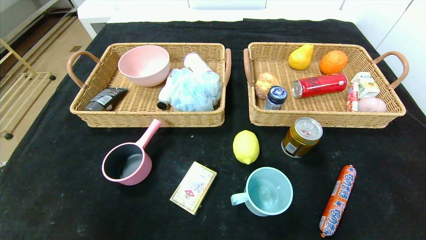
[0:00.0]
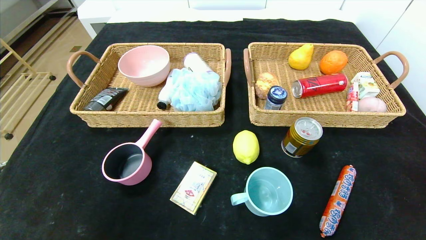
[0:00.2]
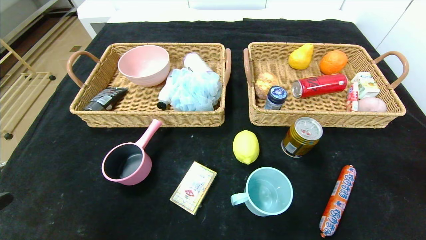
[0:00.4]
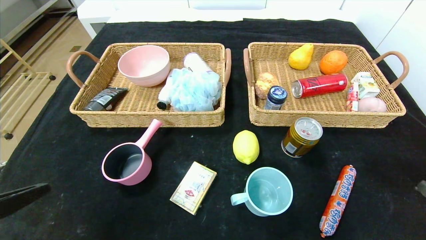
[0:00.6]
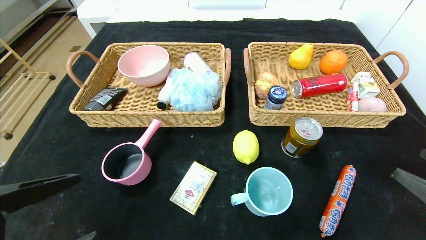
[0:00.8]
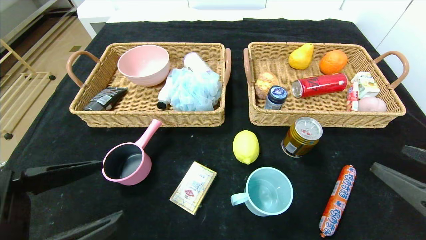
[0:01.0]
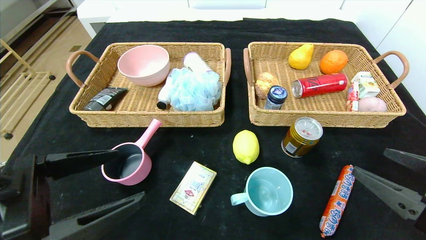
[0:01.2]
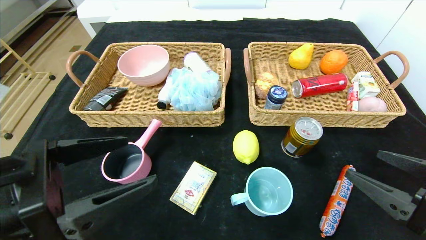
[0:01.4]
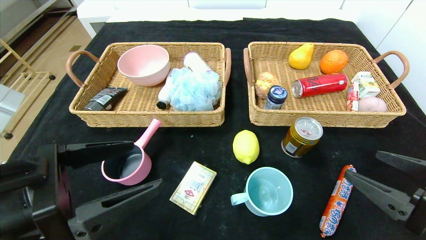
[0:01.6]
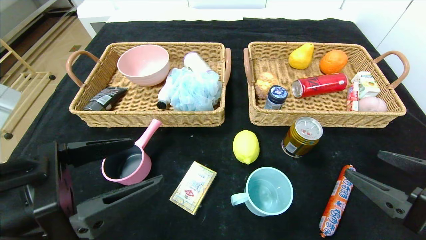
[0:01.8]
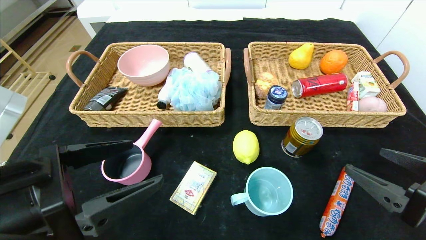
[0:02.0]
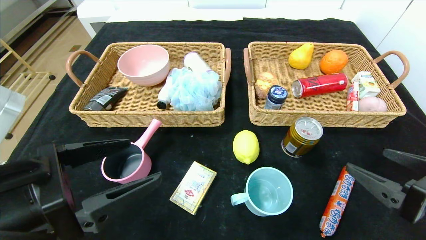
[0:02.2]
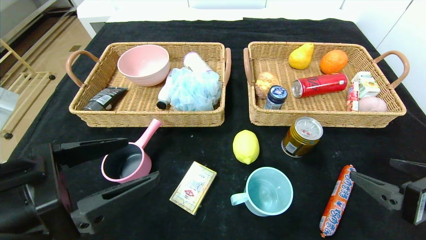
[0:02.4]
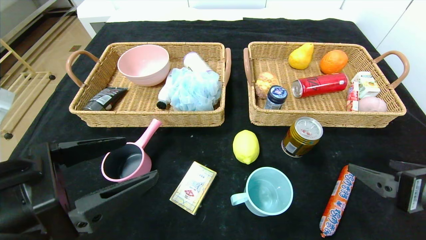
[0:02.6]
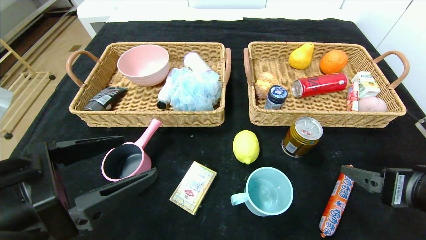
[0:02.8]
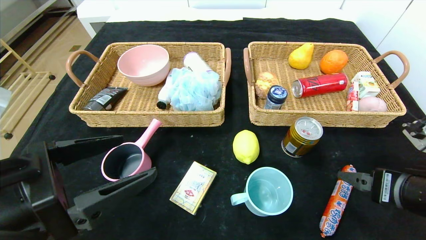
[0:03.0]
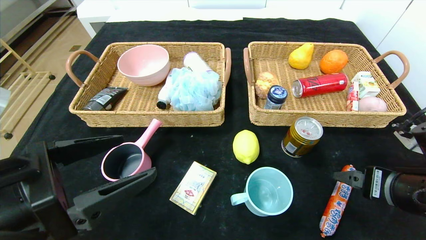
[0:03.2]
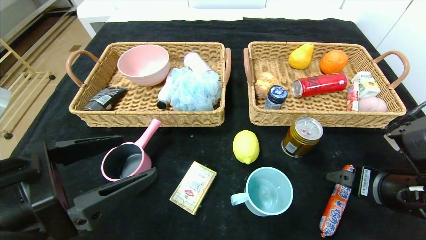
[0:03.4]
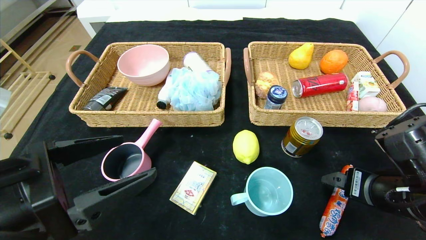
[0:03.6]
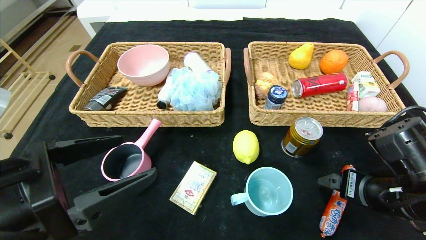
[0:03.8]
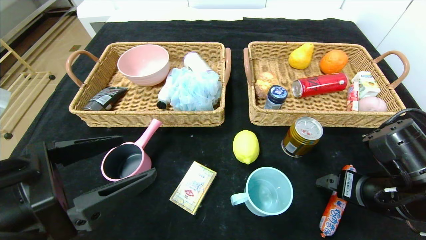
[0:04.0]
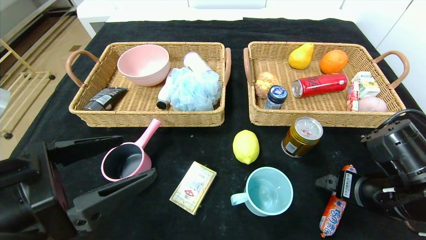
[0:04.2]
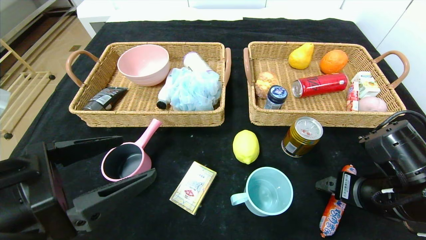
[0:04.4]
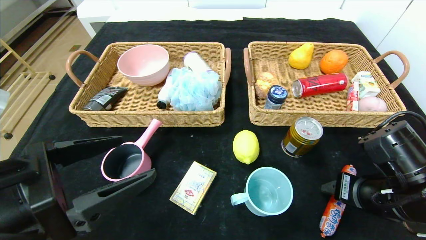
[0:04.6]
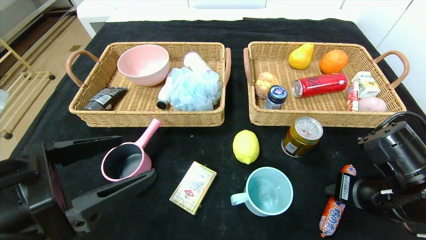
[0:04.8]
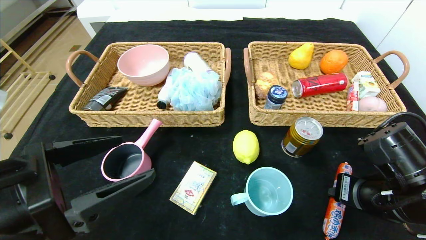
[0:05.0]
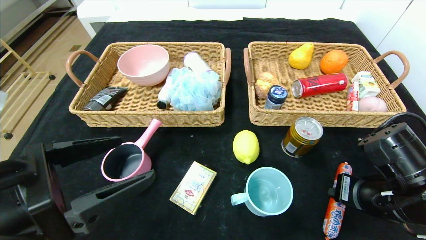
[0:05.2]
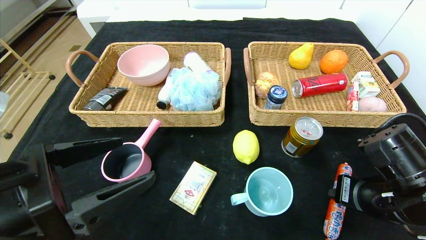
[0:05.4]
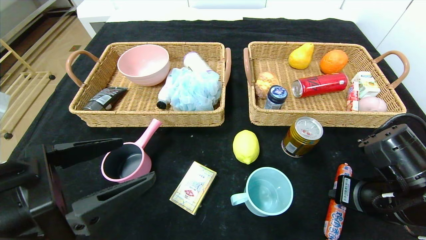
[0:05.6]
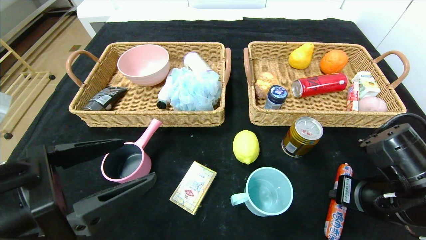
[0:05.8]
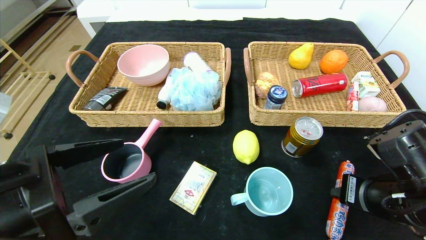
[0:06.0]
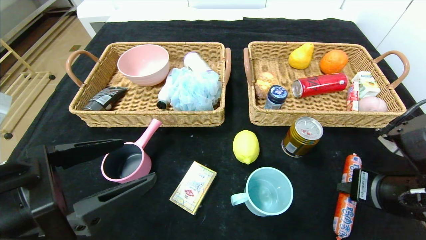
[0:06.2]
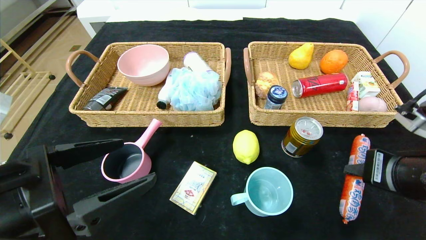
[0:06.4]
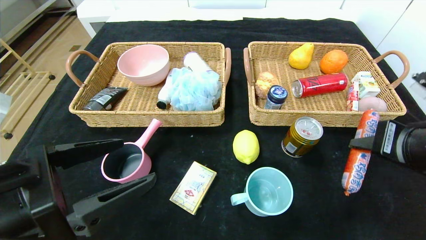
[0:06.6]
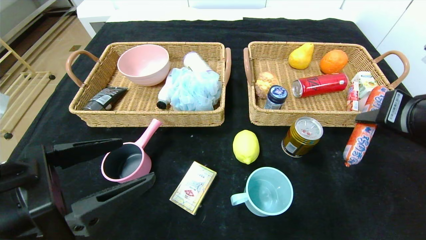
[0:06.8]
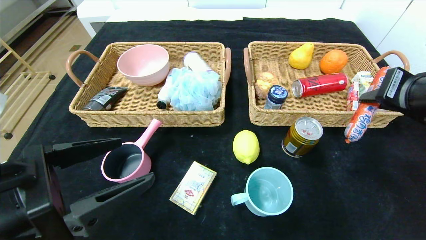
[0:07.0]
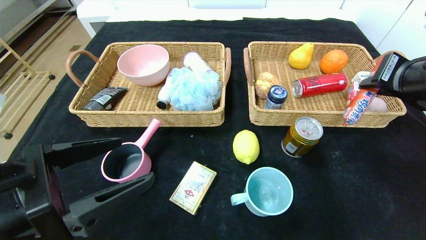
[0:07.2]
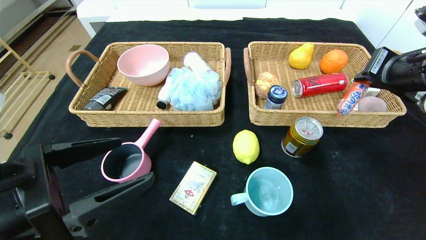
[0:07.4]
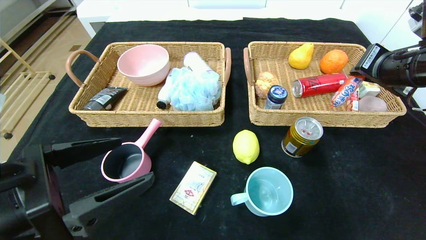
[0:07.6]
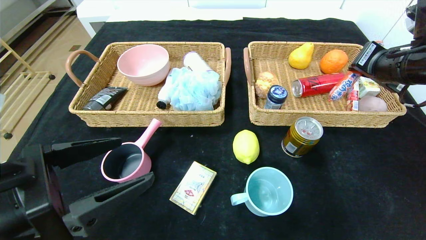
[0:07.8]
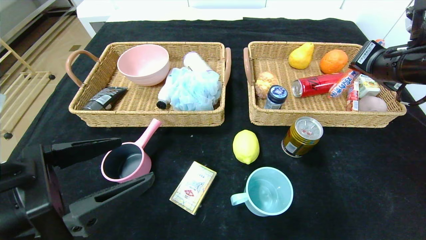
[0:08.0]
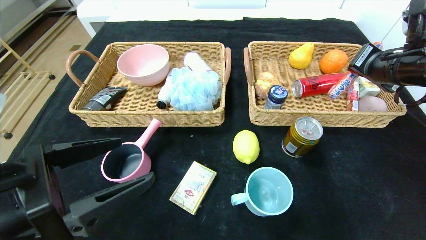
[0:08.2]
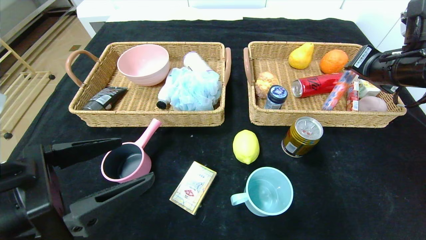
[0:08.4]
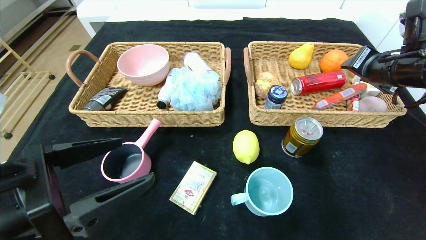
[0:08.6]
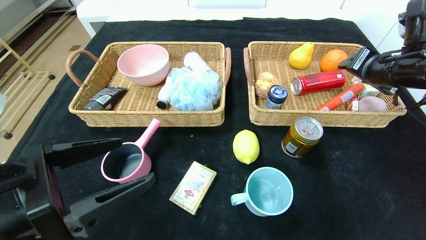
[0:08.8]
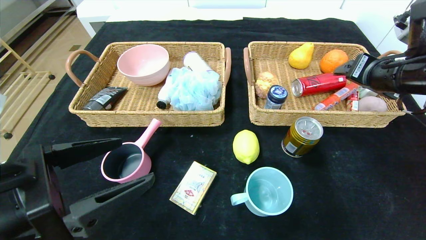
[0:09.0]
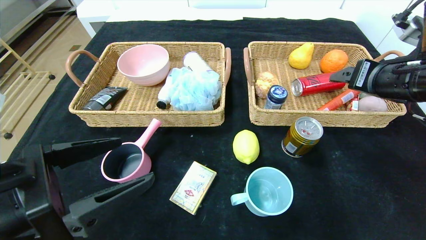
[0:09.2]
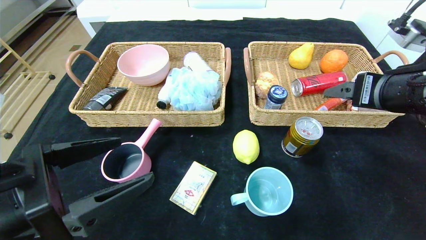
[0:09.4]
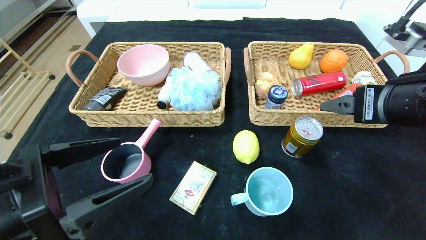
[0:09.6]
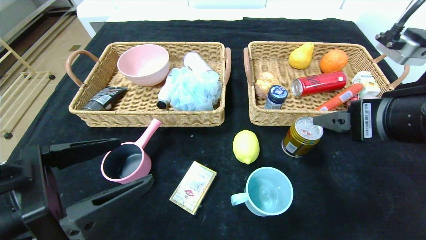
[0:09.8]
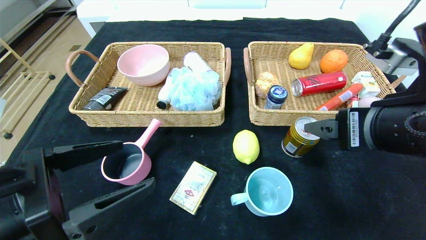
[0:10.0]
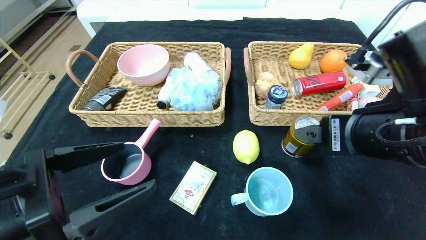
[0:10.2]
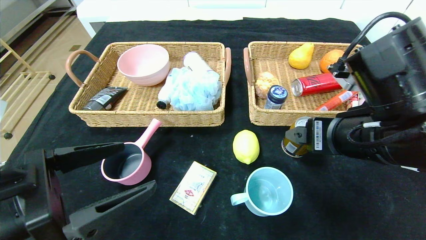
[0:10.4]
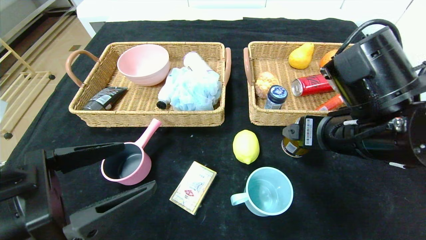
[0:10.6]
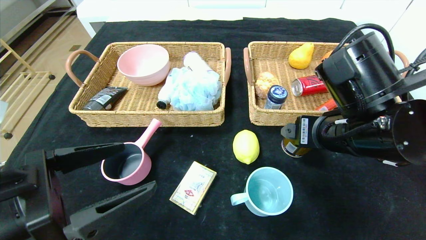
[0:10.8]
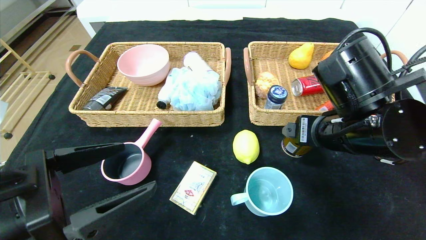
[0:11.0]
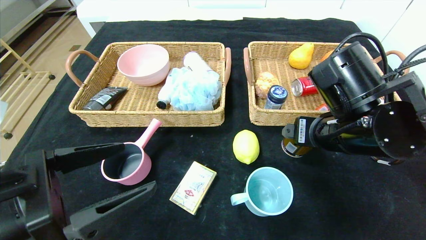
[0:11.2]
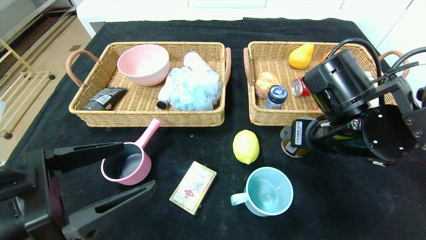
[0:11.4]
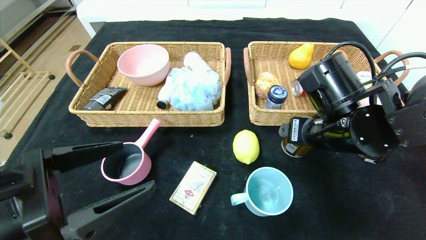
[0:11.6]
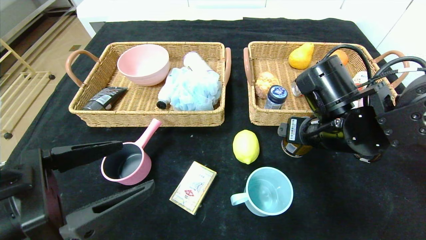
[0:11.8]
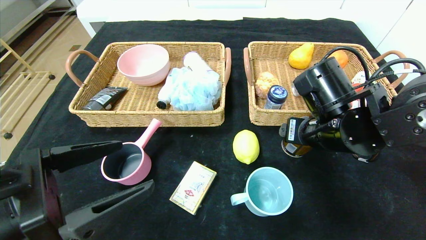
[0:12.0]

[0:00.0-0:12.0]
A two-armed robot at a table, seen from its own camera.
Step, 0:00.0 to 0:09.8: Pick up the sausage and put it in the right basket.
0:00.0 to 0:01.6: The left gripper goes some 20 cm forward, upward and to the right, while the right gripper heads forward and to the left, covering some 15 cm.
0:03.0 to 0:04.4: The right gripper moves some 5 cm.
0:04.4 to 0:06.0: The right gripper closes its fingers.
0:06.0 to 0:07.6: The right gripper shifts approximately 20 cm upward and forward.
0:07.6 to 0:09.0: The right gripper opens.
0:09.0 to 0:10.4: The right gripper shifts about 15 cm to the left and backward.
0:10.4 to 0:12.0: The right gripper goes about 5 cm forward.

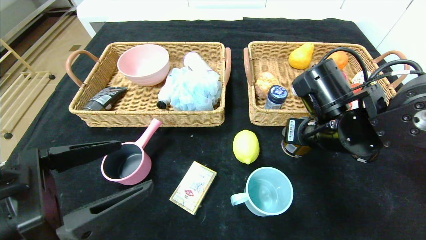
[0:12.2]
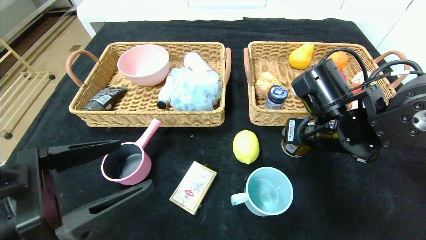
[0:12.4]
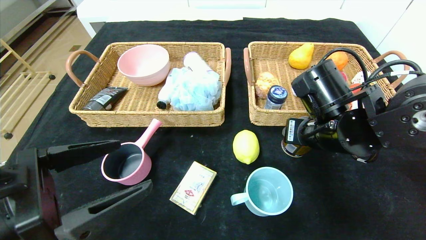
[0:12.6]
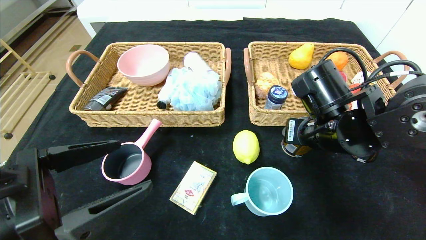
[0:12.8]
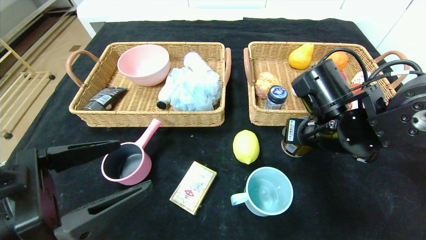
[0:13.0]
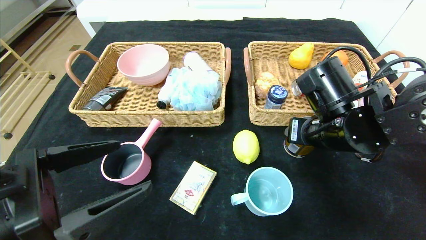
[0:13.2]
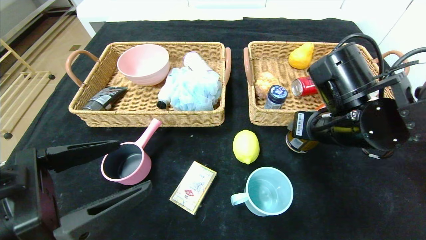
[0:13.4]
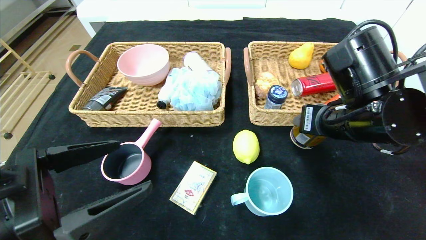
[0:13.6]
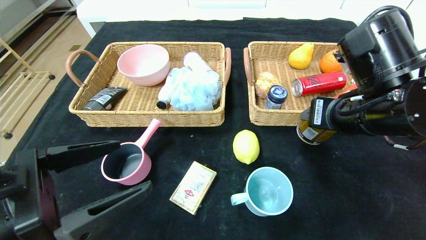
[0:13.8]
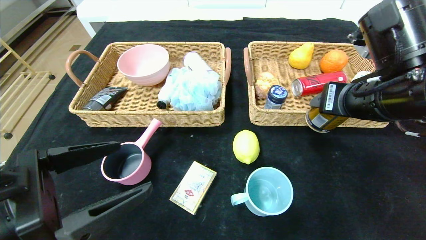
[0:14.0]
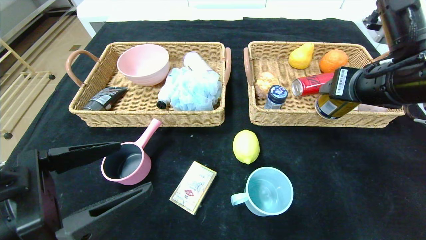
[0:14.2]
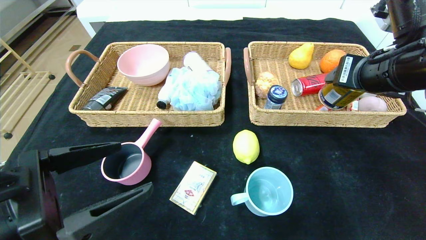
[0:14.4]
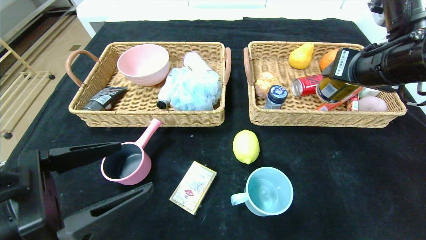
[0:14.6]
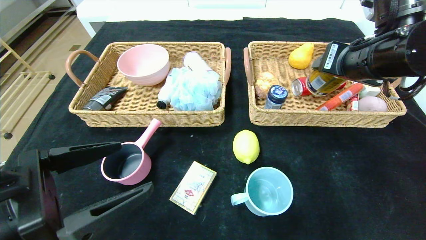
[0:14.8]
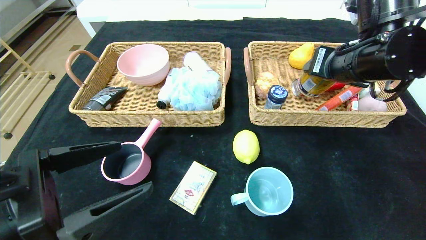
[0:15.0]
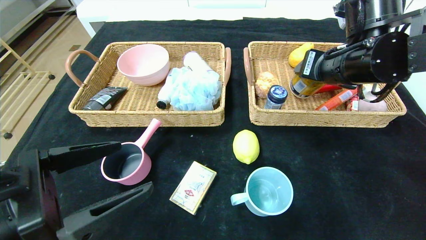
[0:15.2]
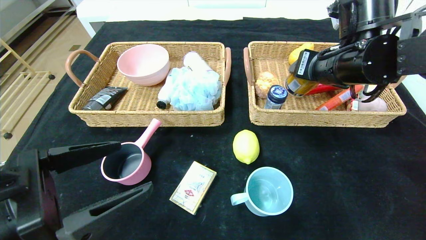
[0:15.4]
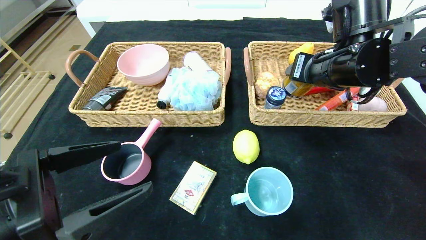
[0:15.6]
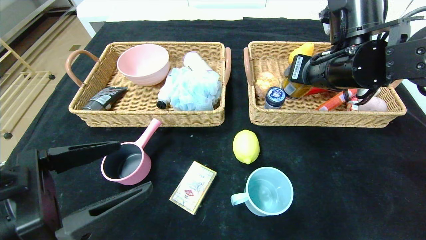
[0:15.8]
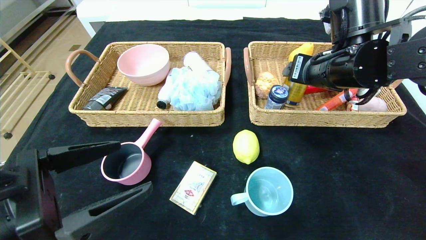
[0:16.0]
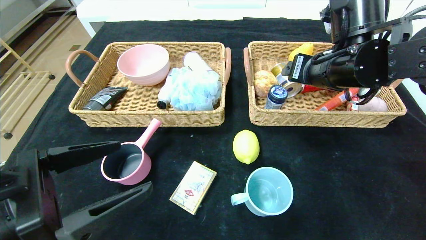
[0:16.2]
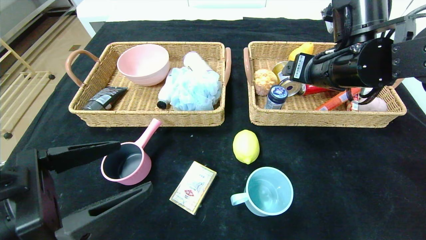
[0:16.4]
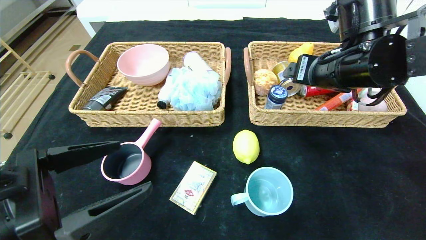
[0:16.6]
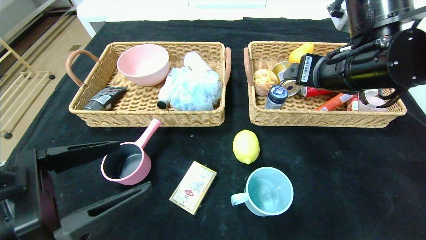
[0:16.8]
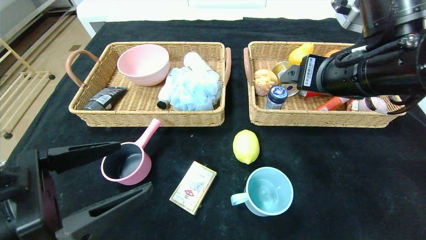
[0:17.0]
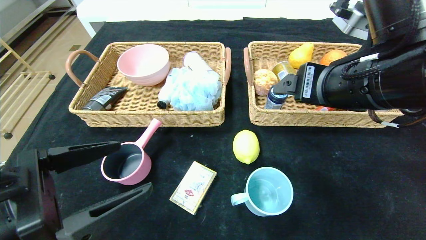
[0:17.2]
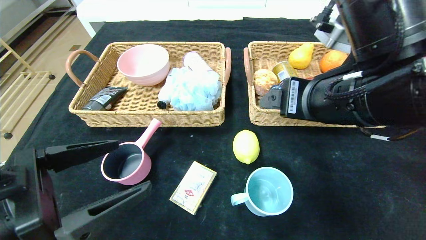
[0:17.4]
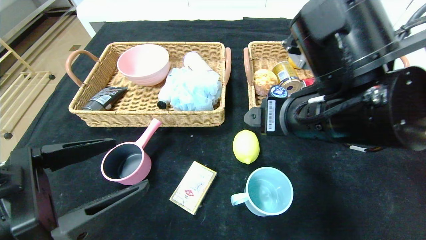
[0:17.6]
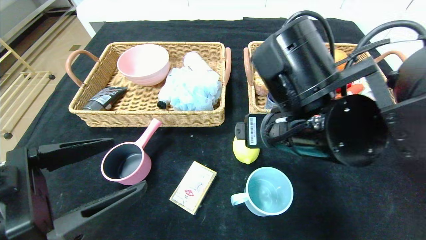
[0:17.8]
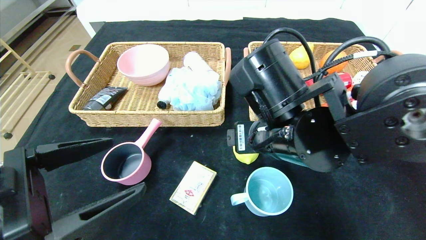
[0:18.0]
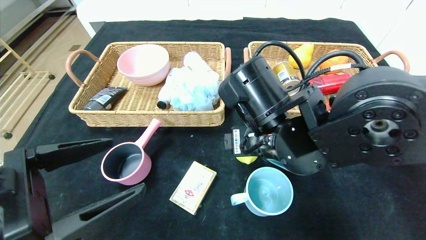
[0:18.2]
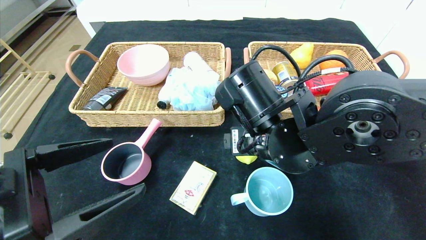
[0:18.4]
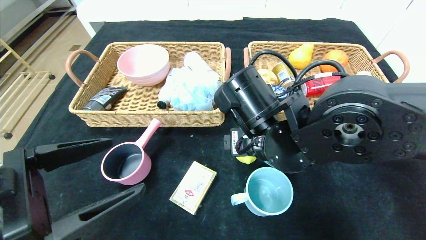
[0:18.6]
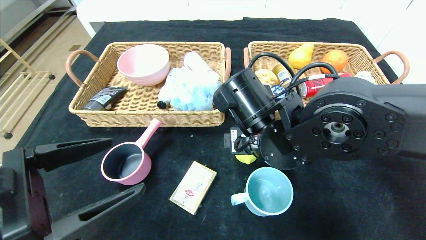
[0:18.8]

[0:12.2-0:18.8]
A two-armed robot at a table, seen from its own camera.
Step, 0:12.2 to 0:17.4: Pick up the red bull and put it in the right basket.
0:12.2 to 0:13.8: The right gripper shifts about 5 cm upward.
0:13.8 to 0:15.4: The right gripper is displaced forward by some 5 cm.
0:15.4 to 0:17.2: The right gripper goes about 10 cm backward, and opens up.
0:17.2 to 0:18.8: The right gripper shifts roughly 15 cm to the left and downward.
